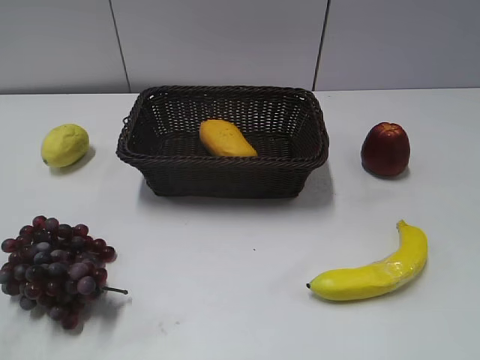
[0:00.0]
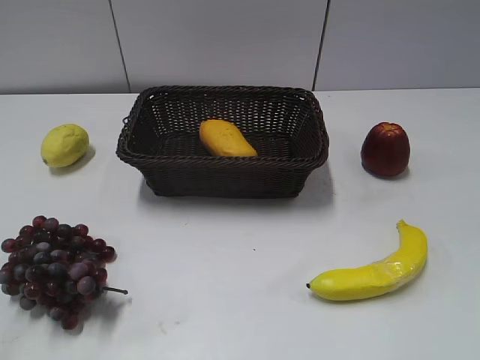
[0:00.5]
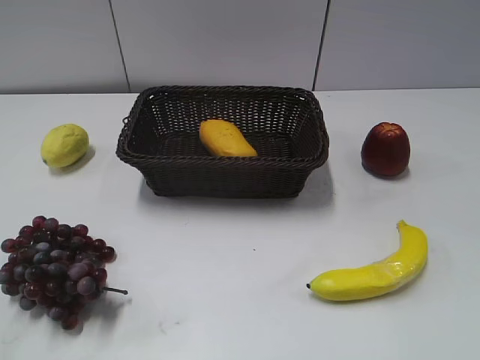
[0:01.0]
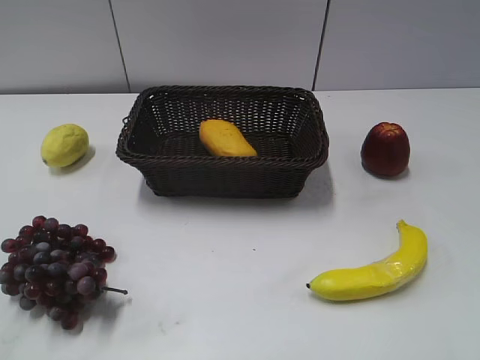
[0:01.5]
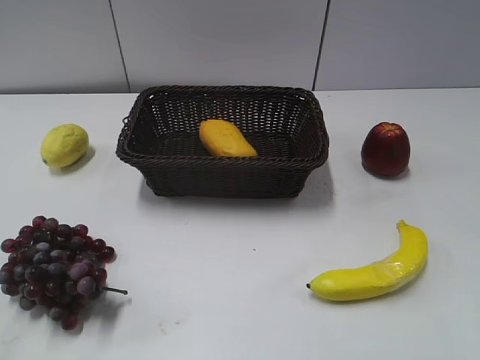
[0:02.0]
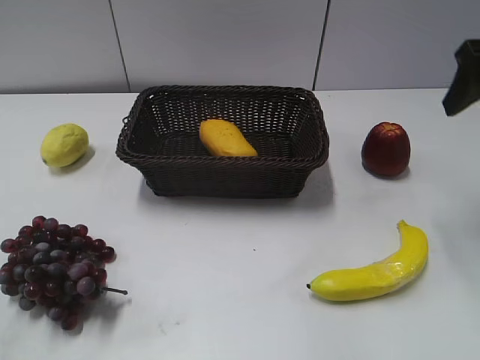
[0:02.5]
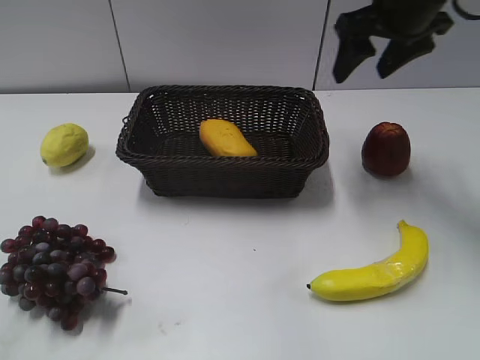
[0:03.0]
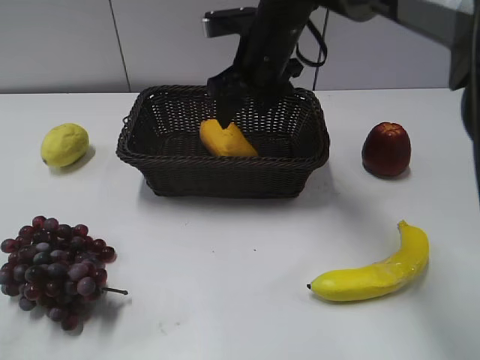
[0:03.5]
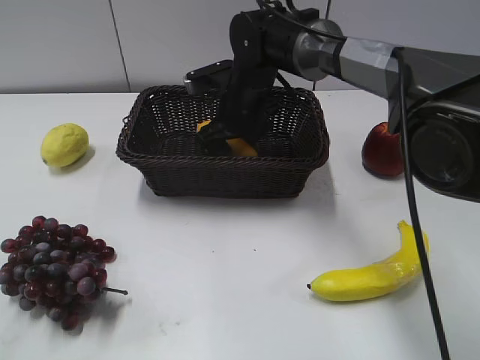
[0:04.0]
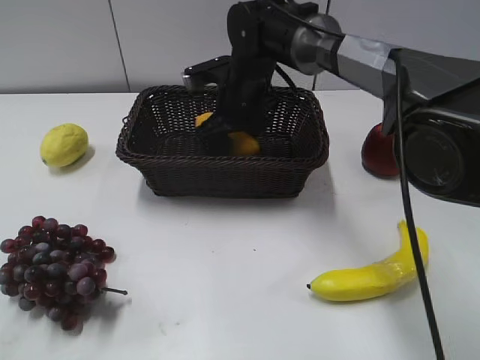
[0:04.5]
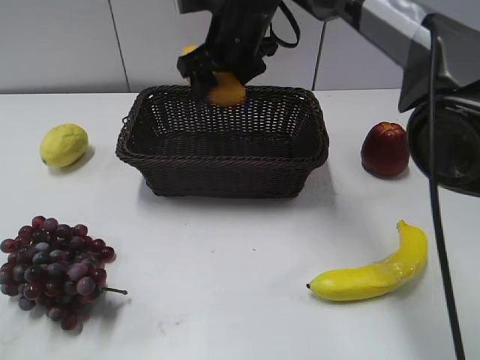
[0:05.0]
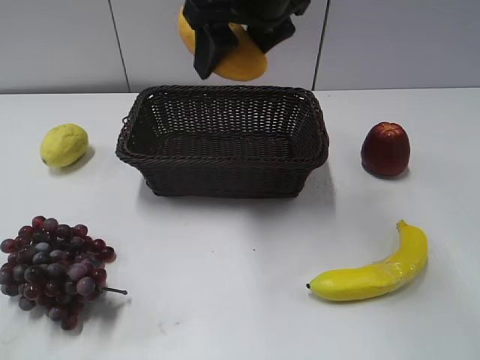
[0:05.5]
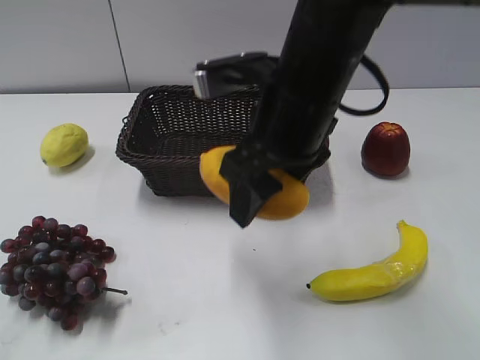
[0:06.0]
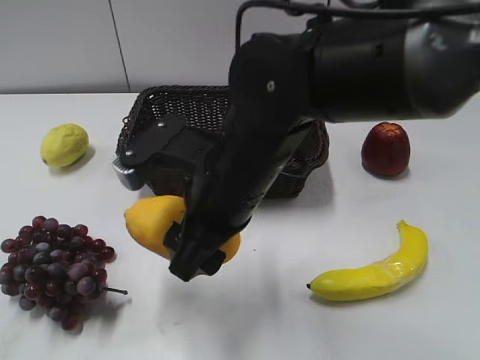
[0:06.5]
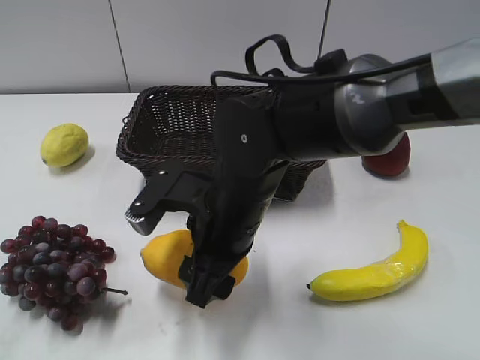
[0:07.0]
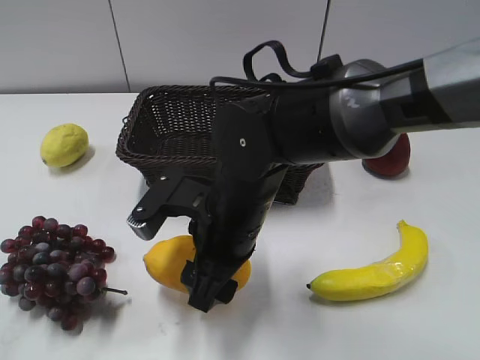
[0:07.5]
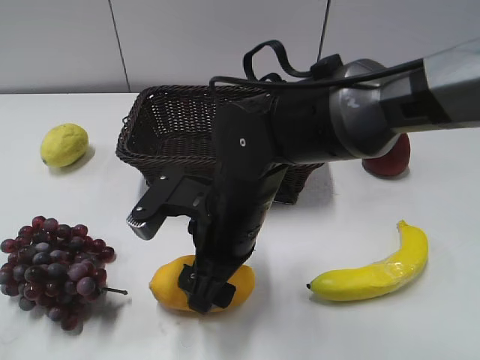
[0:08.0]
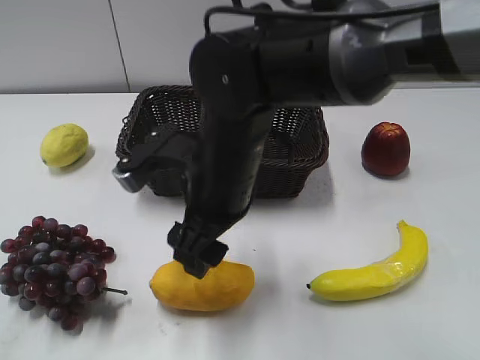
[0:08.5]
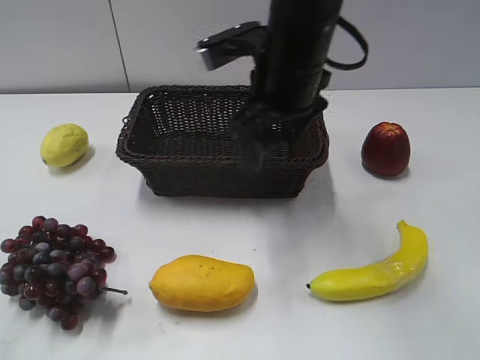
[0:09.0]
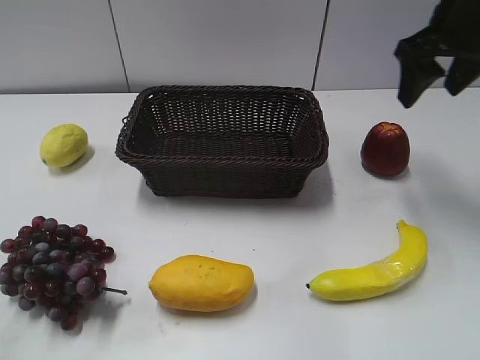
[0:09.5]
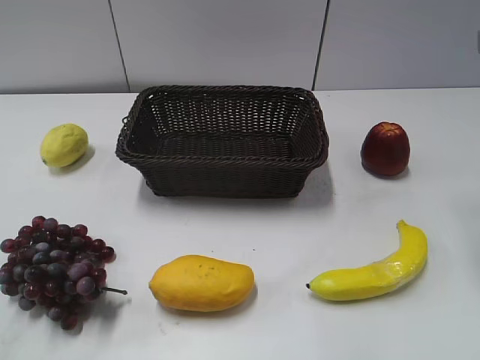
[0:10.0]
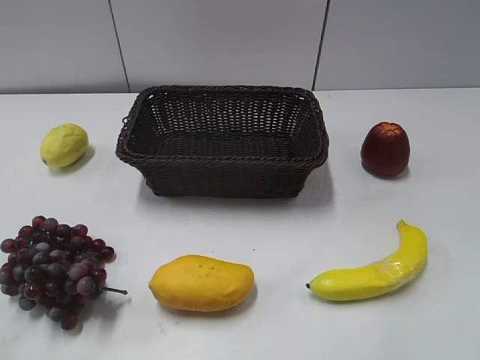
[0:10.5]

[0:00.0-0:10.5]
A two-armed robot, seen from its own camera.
Step, 0:02.5 to 0:04.0: Grasp the mango with right gripper.
Step, 0:04.5 to 0:08.0: Place the mango on the table with right gripper.
0:02.0 to 0:04.0: The right gripper goes about 40 cm forward, to the left and downward.
0:04.0 to 0:06.5: The right gripper moves backward, about 20 cm, and closes its fingers.
0:06.5 to 0:08.5: The right gripper opens up.
0:08.5 to 0:10.5: The right gripper is displaced to the right by about 30 cm, and closes up.

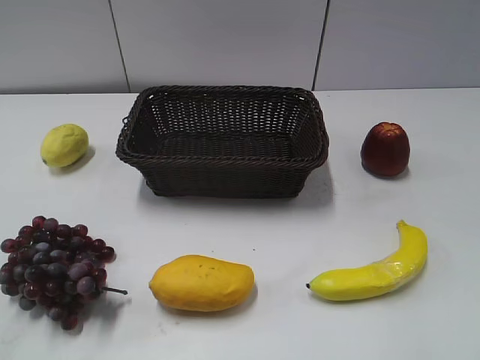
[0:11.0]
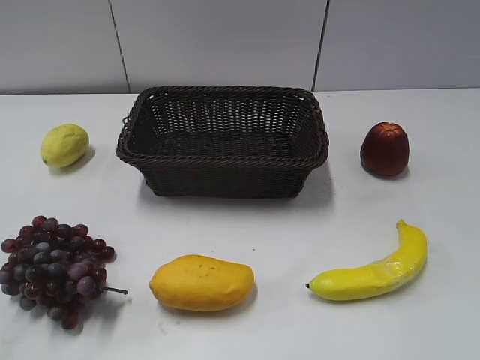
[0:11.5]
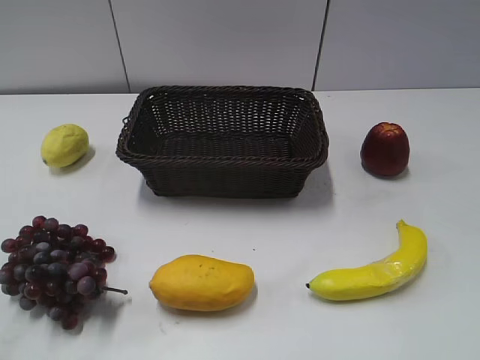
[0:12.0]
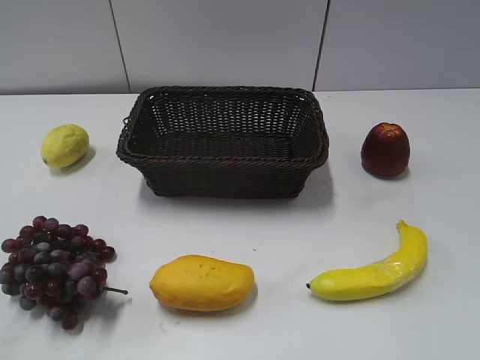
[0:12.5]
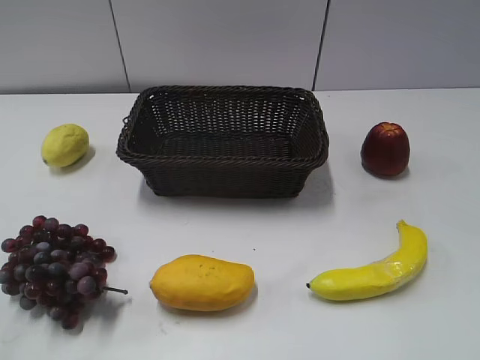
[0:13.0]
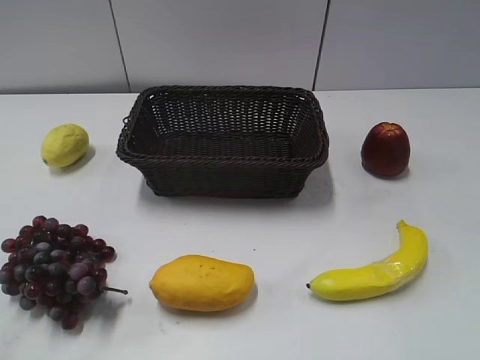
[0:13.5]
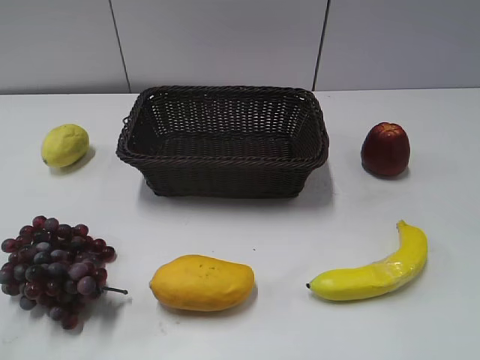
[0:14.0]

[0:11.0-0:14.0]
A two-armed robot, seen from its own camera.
0:12.5 to 0:14.0: Both grippers stay about where they are.

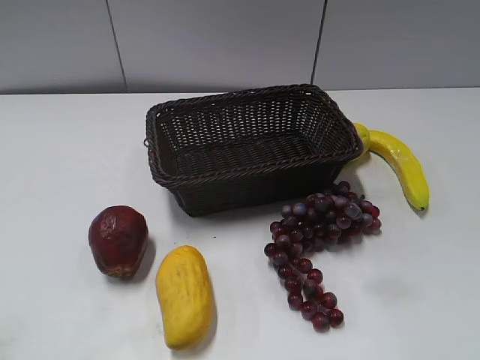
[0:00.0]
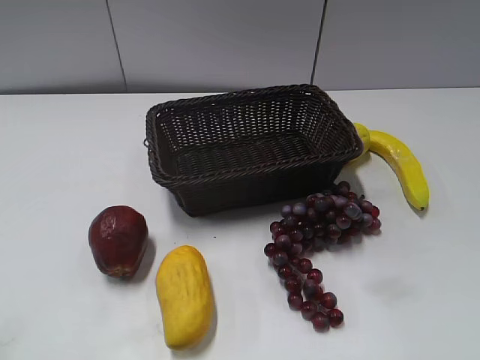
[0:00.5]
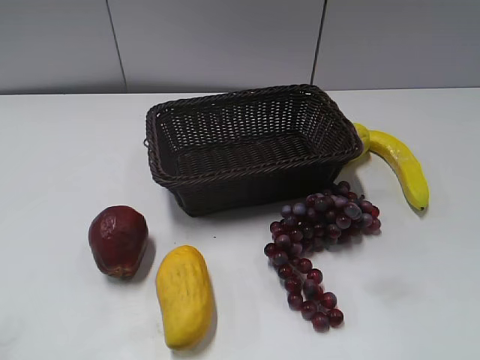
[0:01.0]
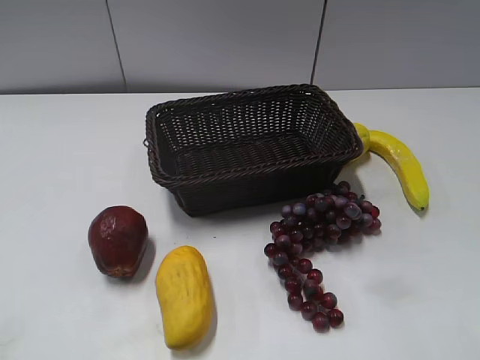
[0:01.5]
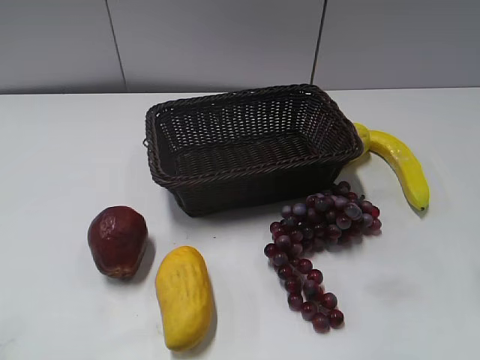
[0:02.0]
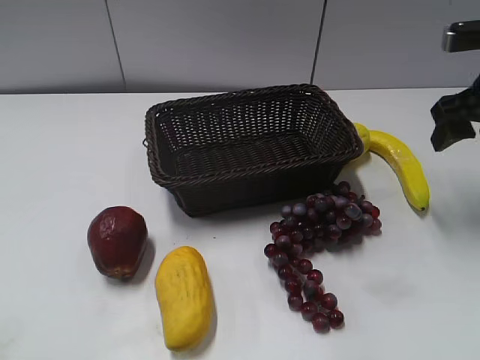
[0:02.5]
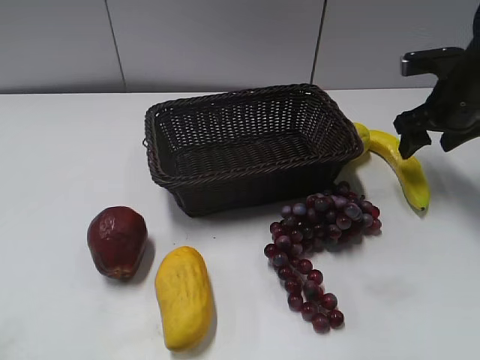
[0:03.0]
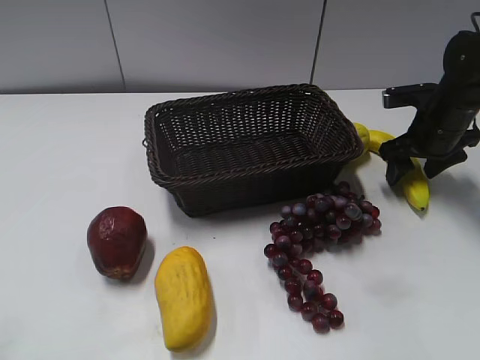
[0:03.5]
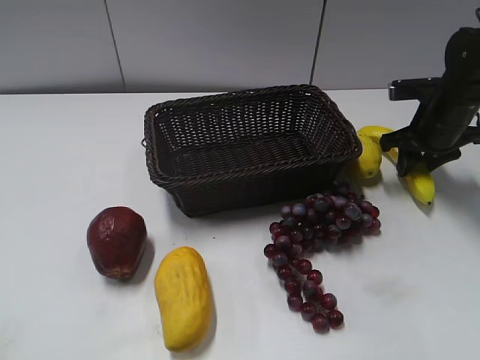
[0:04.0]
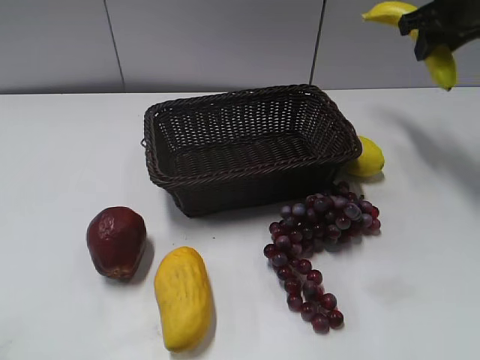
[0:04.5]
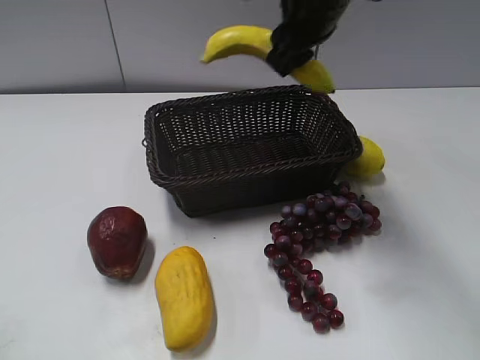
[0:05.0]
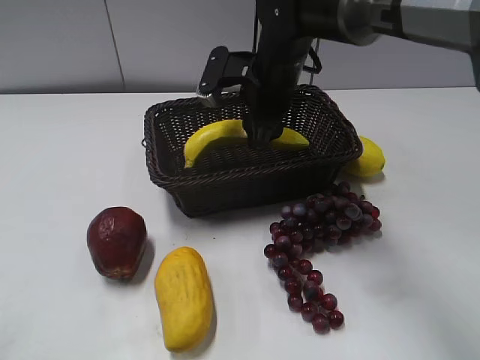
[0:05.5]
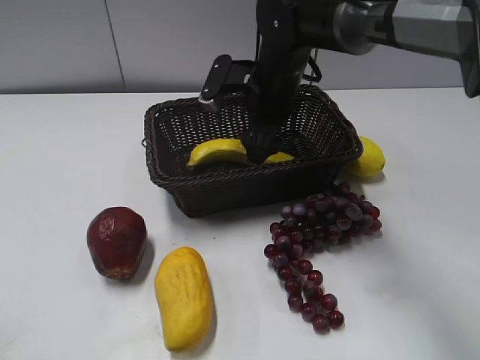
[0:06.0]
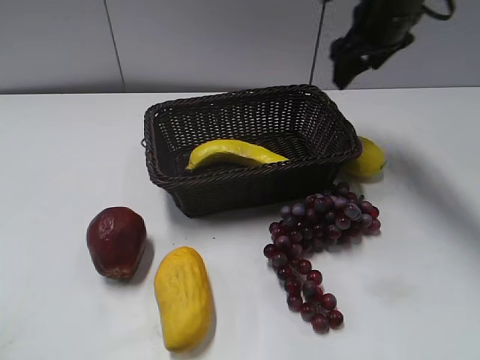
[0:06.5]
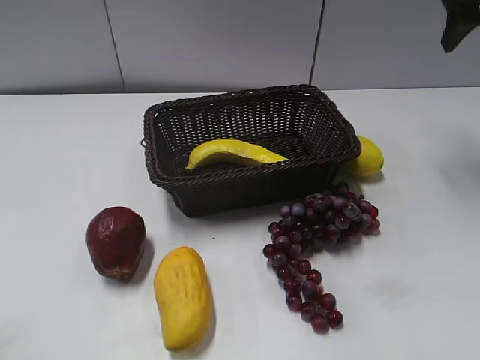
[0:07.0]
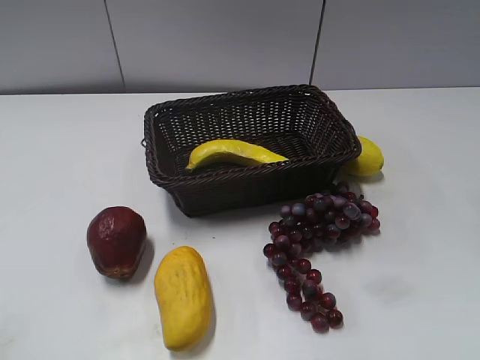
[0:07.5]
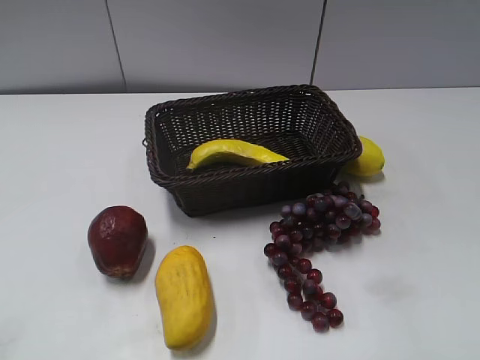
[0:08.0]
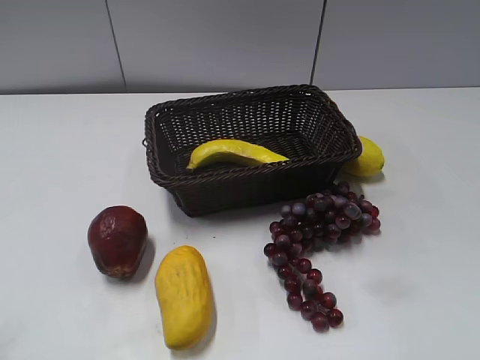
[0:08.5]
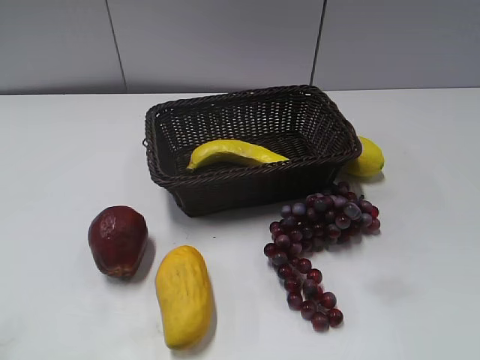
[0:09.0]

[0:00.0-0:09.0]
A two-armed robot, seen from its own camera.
Step, 0:02.5 to 0:04.0: Grasp the banana with right gripper.
Step, 0:04.5 to 0:06.0: Place the banana in the basket with right gripper.
0:02.0 to 0:04.5: The right gripper goes some 25 cm forward, and closes.
0:04.5 to 0:07.0: The right gripper moves roughly 20 cm to the left and comes back, and opens up.
0:07.0 to 0:09.0: The right gripper moves backward, roughly 40 cm.
